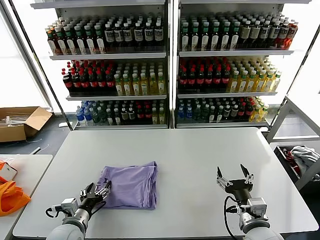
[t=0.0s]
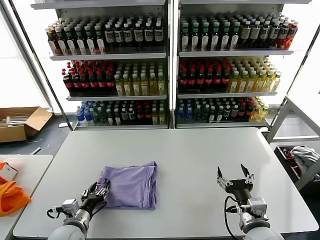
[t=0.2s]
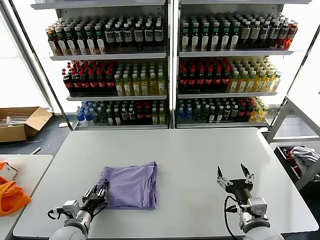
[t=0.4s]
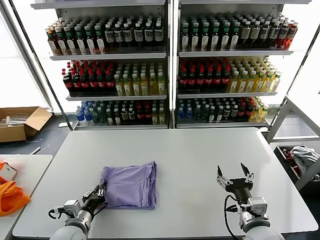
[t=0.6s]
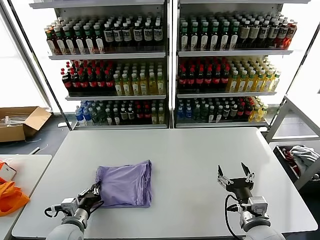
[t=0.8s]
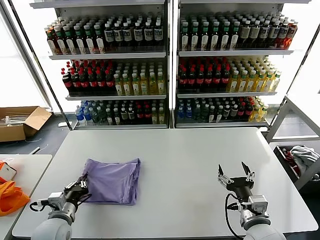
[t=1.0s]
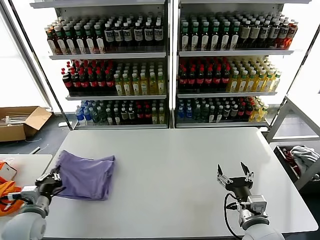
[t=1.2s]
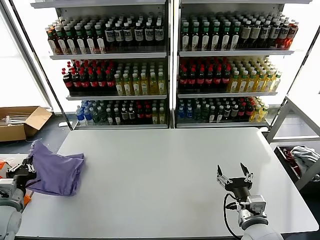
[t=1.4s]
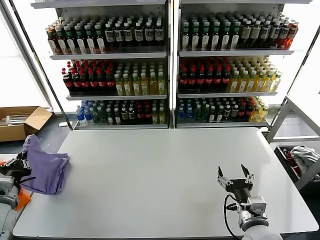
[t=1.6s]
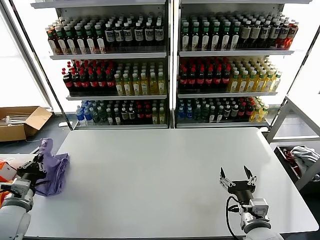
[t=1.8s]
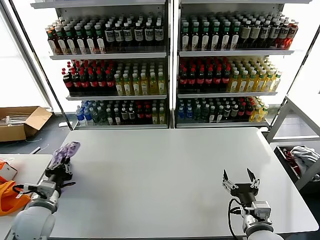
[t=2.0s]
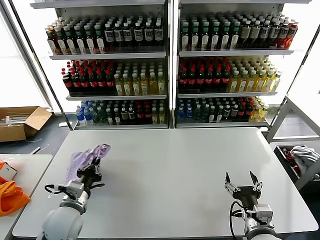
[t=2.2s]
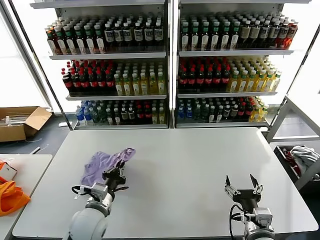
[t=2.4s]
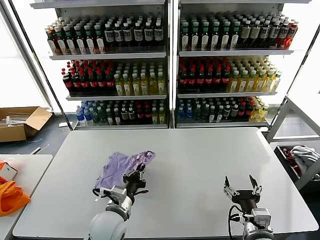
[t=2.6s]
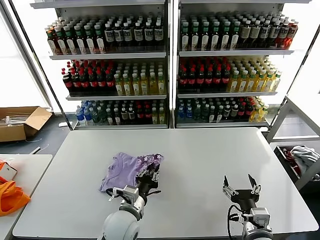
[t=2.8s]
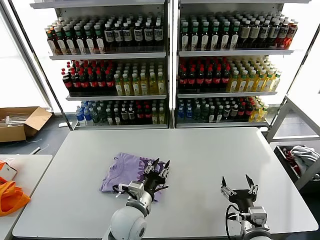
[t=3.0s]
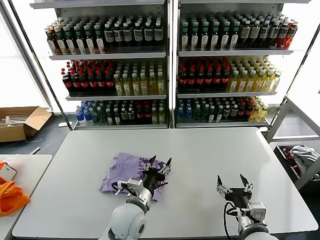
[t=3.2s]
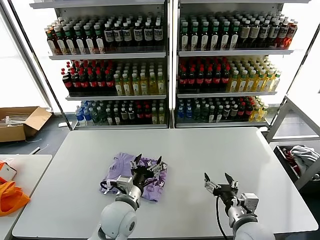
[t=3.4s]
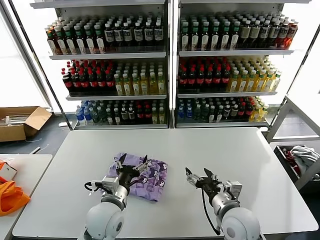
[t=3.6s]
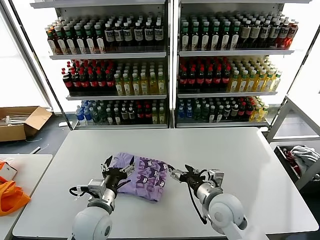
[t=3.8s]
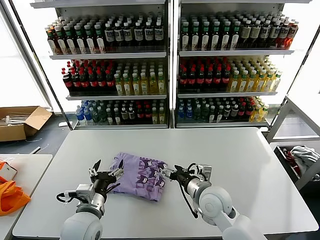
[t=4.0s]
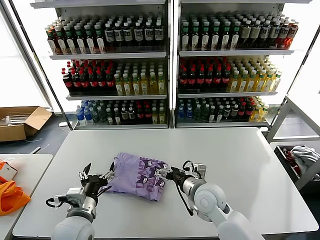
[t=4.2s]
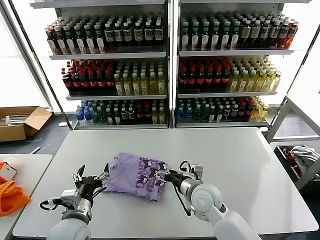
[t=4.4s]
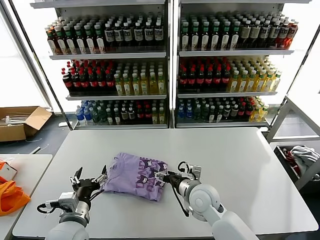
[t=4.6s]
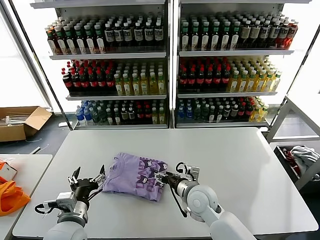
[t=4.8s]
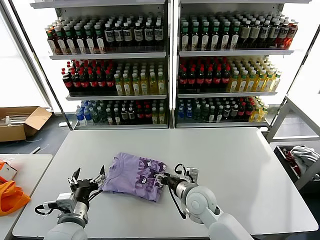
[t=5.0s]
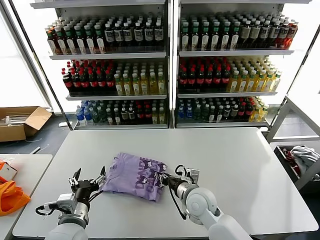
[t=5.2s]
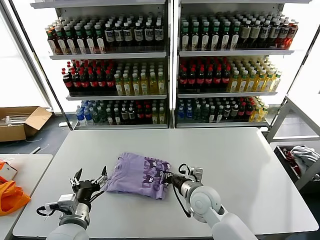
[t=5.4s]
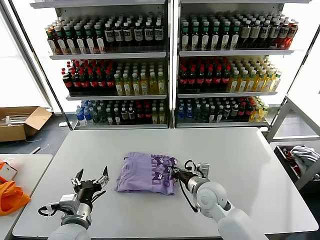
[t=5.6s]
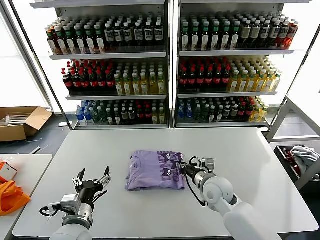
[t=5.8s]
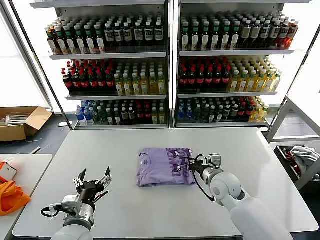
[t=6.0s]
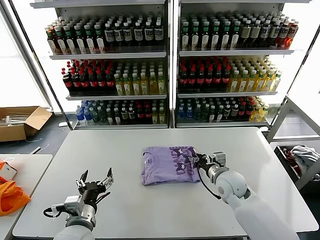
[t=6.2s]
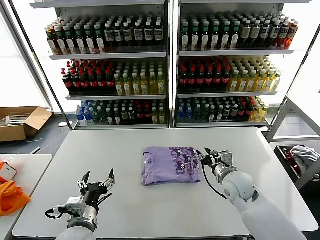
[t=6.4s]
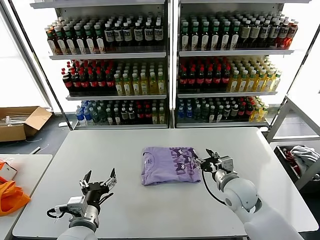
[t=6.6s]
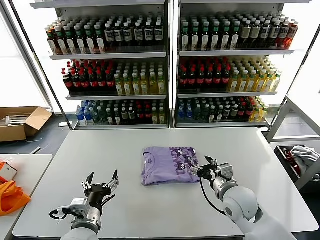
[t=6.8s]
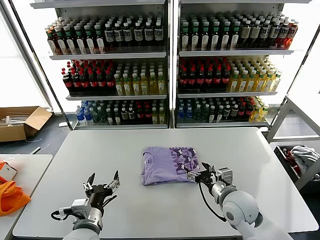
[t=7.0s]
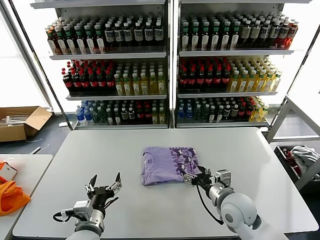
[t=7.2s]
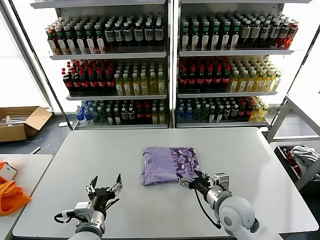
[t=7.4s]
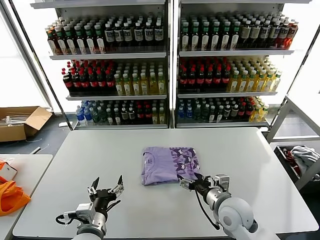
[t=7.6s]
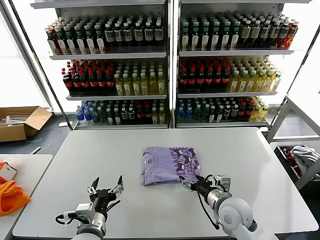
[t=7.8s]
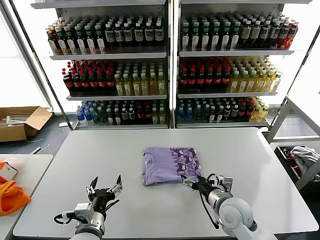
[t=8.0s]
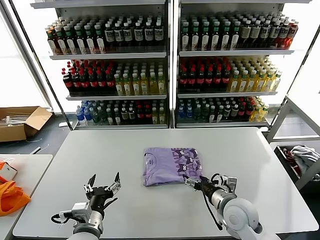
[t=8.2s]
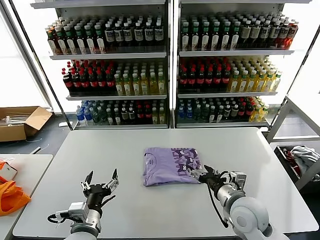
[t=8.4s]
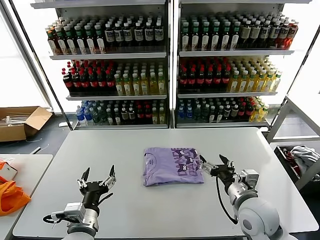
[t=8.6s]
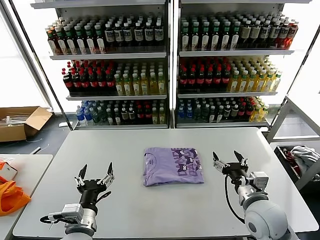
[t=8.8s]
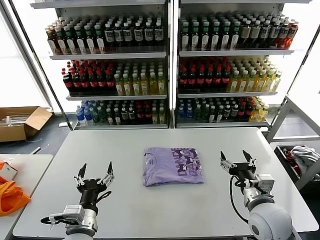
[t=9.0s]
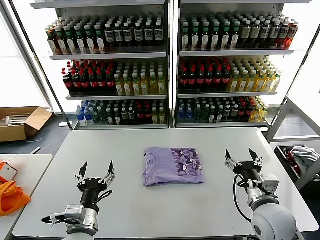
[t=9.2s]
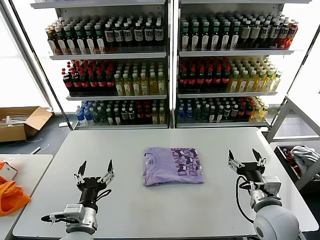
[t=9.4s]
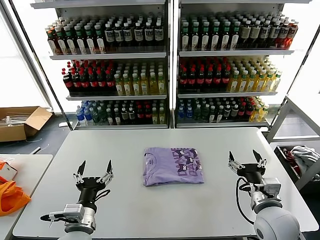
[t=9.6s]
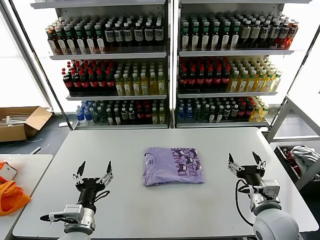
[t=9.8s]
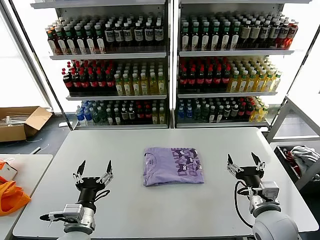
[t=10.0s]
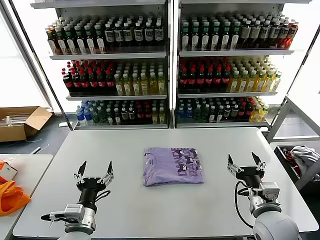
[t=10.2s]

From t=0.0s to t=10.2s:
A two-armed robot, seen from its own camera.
Task of the whole recording: fold and organize the clothes.
Step, from t=0.0s to t=3.0s: Flip the folded clothes over with left gripper.
Step, from t=3.2s to t=8.4s: Drag the clothes to the center of the table.
From t=0.0s to t=1.4s: The left gripper heads to the left and upward, covering approximately 15 cm, and closes its fingers.
From t=1.4s to t=3.0s: The left gripper travels to the right by roughly 35 cm, and opens.
From t=3.0s to t=4.4s: The left gripper is displaced to the left by roughly 15 cm, and opens, while the right gripper heads forward and to the left, covering some 20 cm.
From t=4.4s to t=5.8s: The right gripper closes up.
From t=5.8s to t=7.2s: The right gripper shifts about 5 cm backward, and opens.
From t=7.2s to t=8.8s: The right gripper changes place by some 5 cm.
From t=8.8s to t=10.2s: The grippers make only small movements.

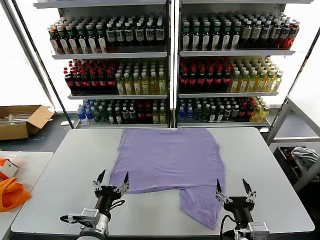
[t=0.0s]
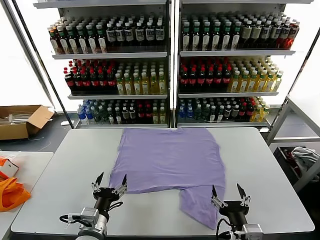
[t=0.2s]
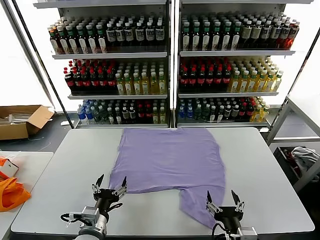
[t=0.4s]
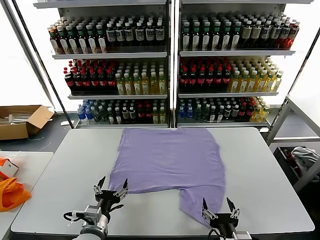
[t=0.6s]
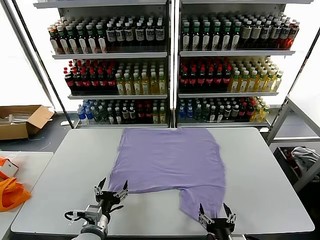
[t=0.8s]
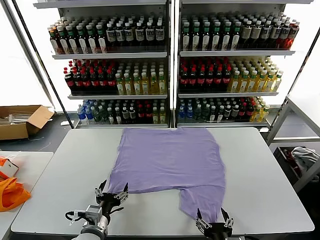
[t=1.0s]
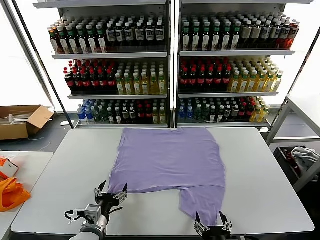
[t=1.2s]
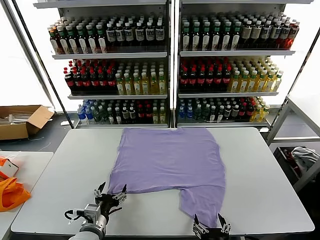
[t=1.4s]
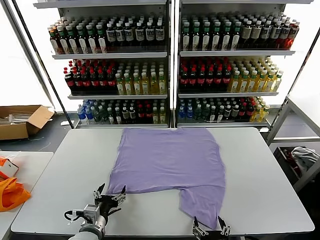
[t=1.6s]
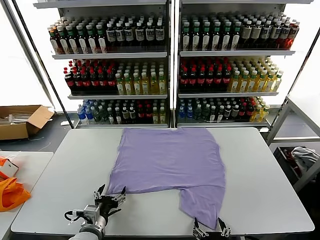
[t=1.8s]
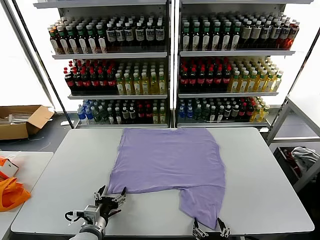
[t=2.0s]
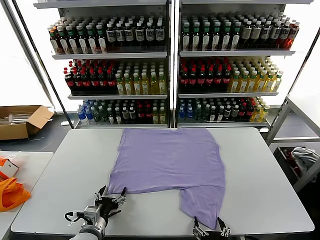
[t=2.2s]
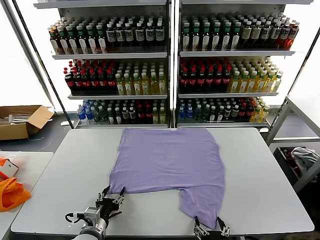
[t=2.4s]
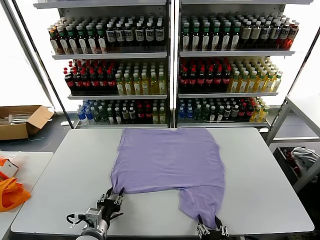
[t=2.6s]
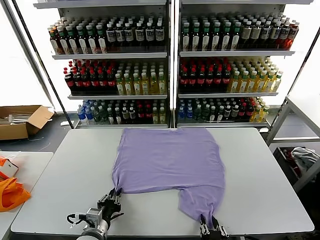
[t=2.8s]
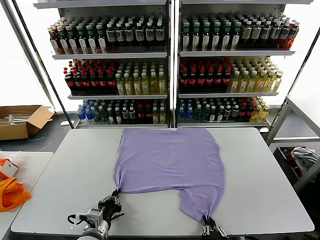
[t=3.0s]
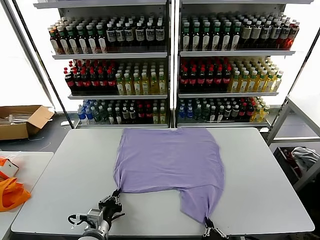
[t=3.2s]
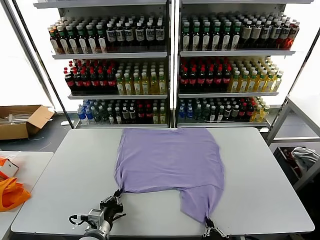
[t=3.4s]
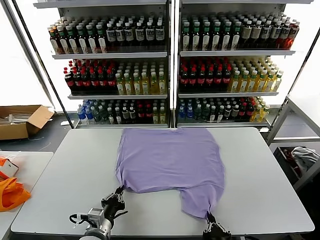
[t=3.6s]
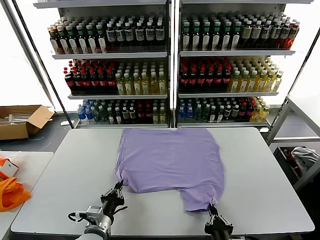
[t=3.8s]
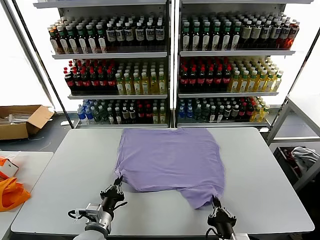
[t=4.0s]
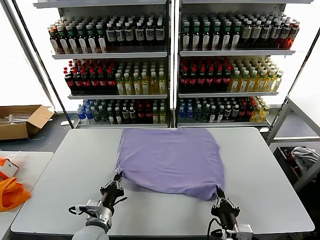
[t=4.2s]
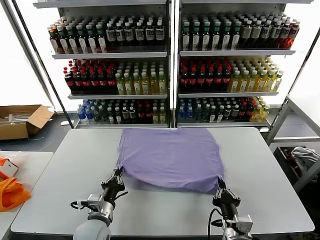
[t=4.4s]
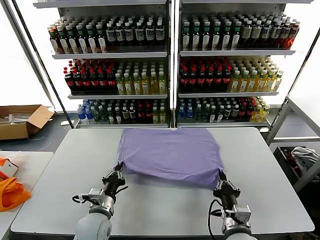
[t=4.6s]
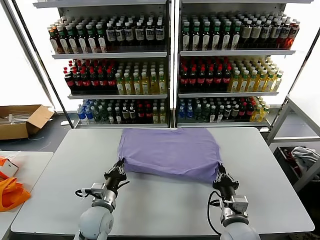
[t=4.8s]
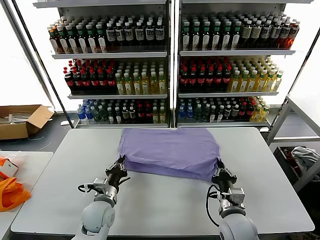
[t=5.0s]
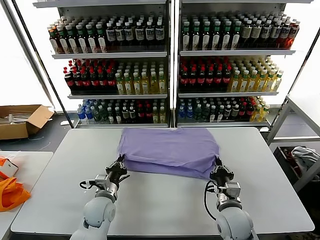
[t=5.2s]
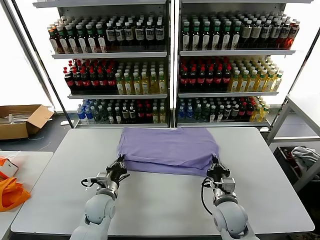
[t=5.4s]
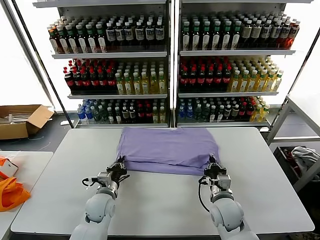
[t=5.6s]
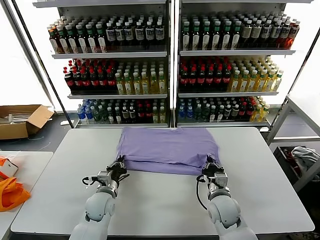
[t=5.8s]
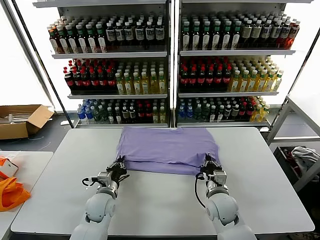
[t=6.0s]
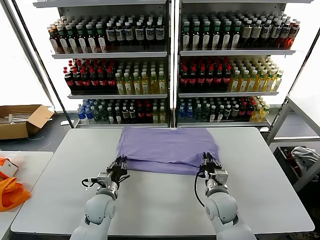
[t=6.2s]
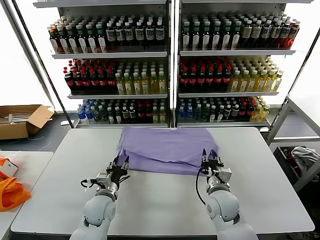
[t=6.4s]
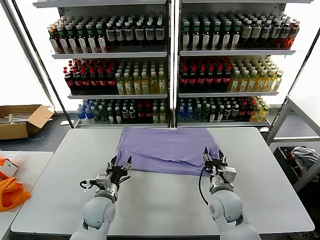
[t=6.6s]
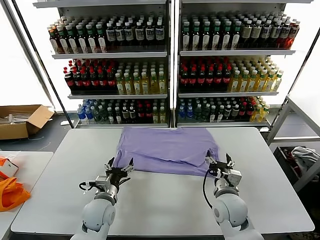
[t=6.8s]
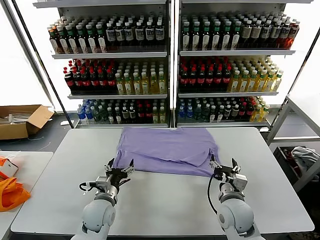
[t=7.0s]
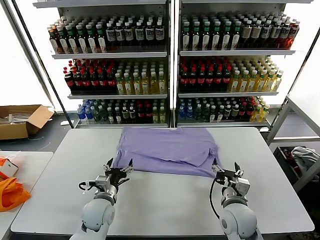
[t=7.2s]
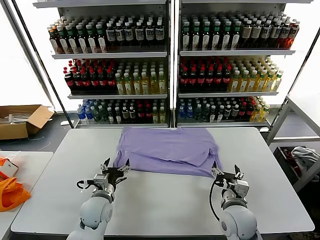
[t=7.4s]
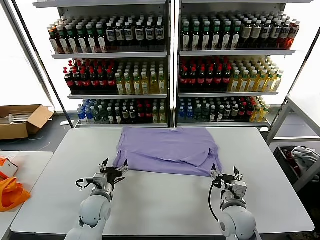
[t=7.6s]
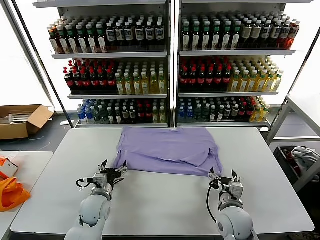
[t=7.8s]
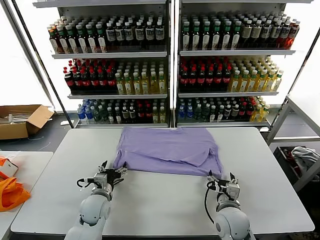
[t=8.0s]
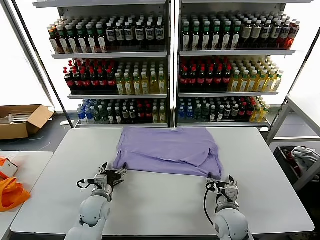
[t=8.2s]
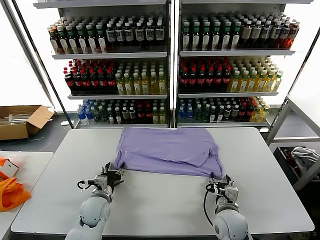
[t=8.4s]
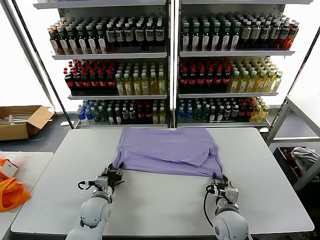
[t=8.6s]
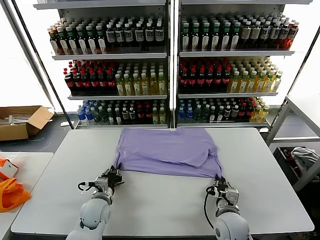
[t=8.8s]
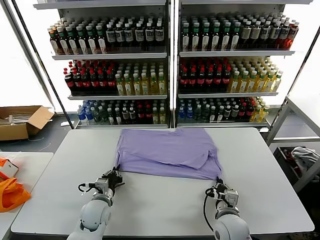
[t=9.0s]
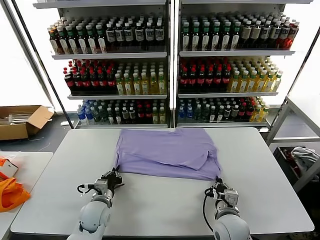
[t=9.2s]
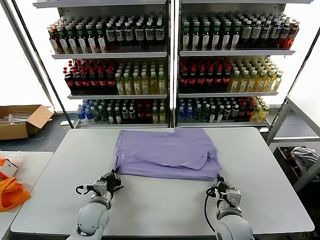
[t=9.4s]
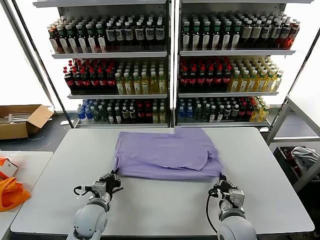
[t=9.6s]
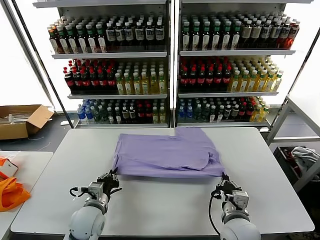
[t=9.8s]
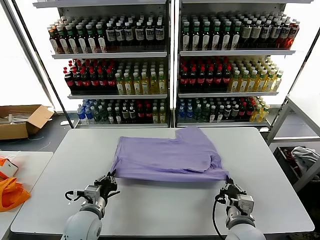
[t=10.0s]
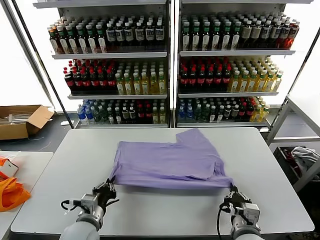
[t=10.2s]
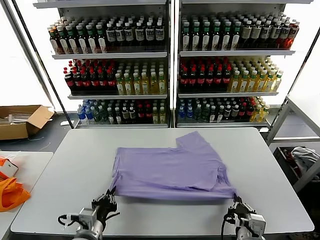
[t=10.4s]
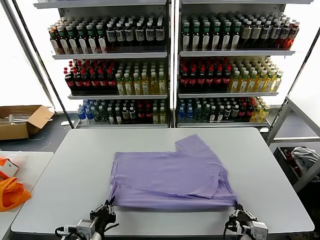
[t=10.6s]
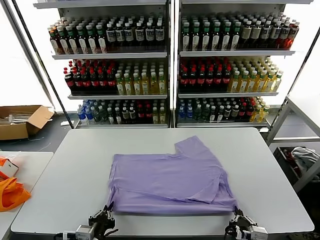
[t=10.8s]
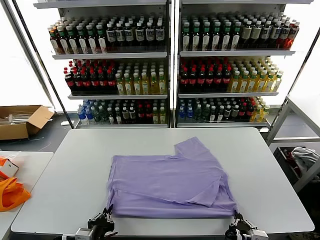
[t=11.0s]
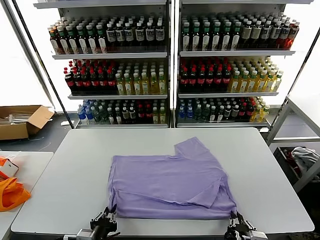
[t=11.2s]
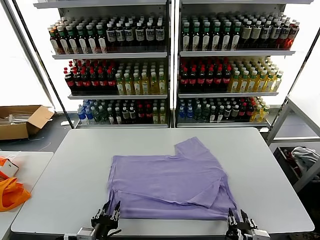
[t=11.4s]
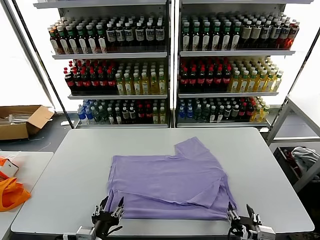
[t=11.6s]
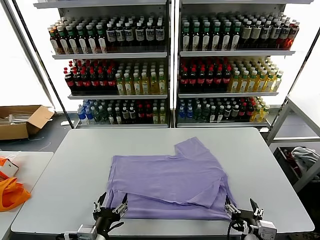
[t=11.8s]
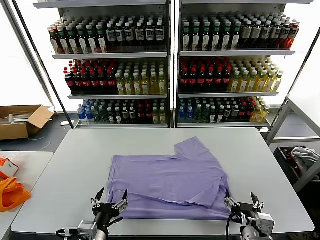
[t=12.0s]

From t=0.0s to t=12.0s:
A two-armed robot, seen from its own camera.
Task of the whole recording: fold and organize the clothes.
Step, from t=0.0s to t=3.6s: use both grippers simultaneously to clamp the lower edge of the clothing fabric.
Step, from t=3.8s to t=6.4s: use both grippers to drag the lower edge of the fabric forward and fold it over the upper edge.
Step, from t=6.6s to t=11.4s: Drag the clothes downward with both gripper.
From t=1.6s to t=3.0s: The left gripper closes; the right gripper closes.
From t=3.0s to t=4.4s: The left gripper shifts by approximately 5 cm. Meanwhile the right gripper moves forward, about 10 cm.
From t=4.4s to t=6.0s: The two grippers go about 10 cm forward.
From t=6.0s to t=7.6s: The left gripper opens its fingers; the right gripper moves backward, roughly 5 cm, and opens.
From t=7.6s to t=9.0s: The right gripper closes its fingers, while the left gripper closes.
From t=9.0s to t=10.4s: The grippers both shift backward and upward by some 15 cm.
From t=10.4s to t=12.0s: The right gripper opens. Meanwhile the left gripper opens up.
